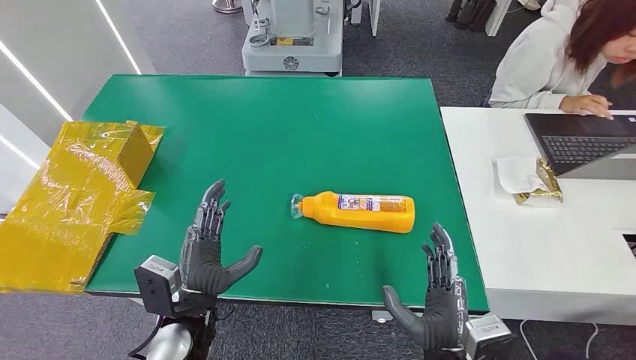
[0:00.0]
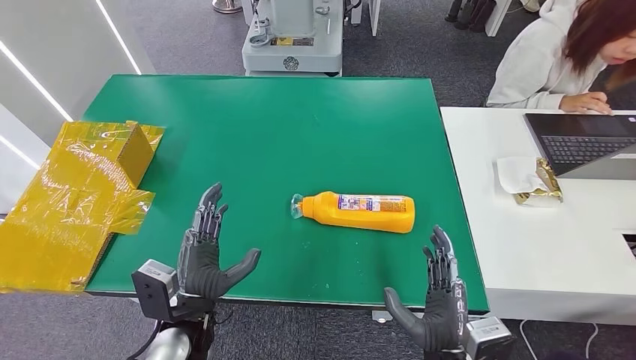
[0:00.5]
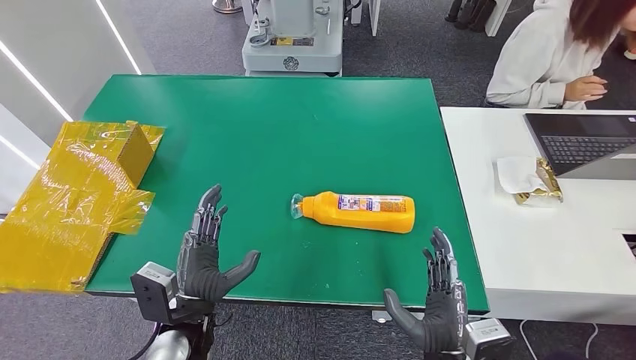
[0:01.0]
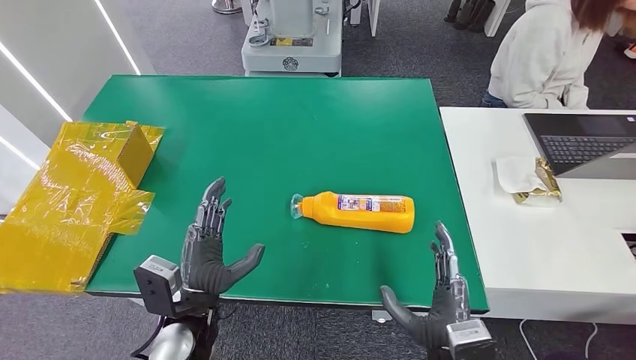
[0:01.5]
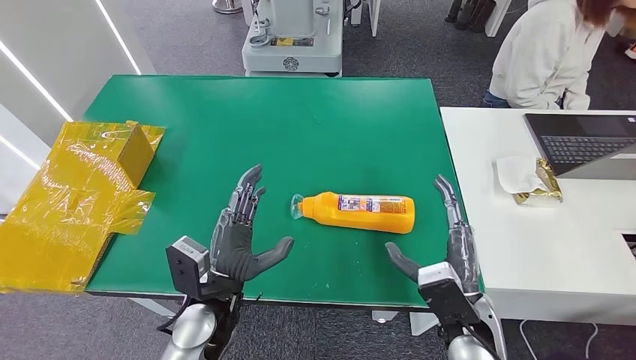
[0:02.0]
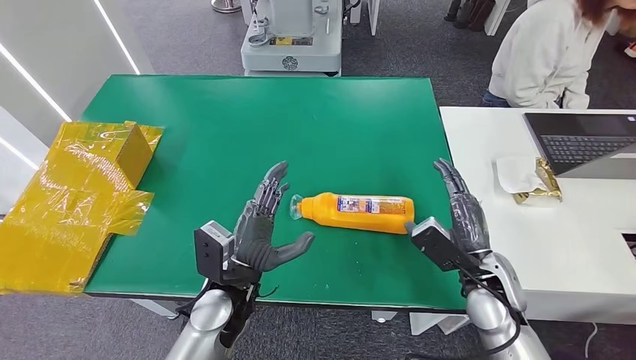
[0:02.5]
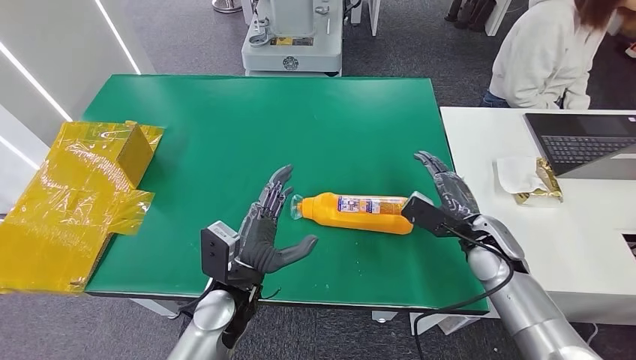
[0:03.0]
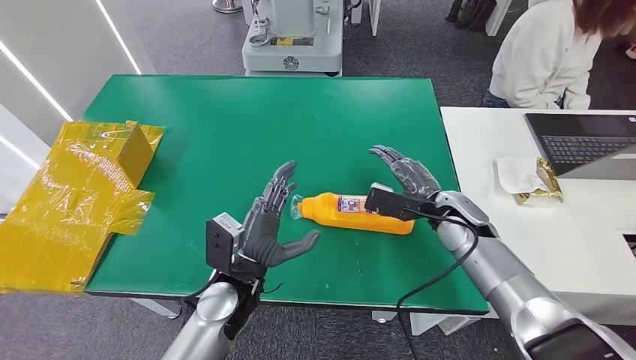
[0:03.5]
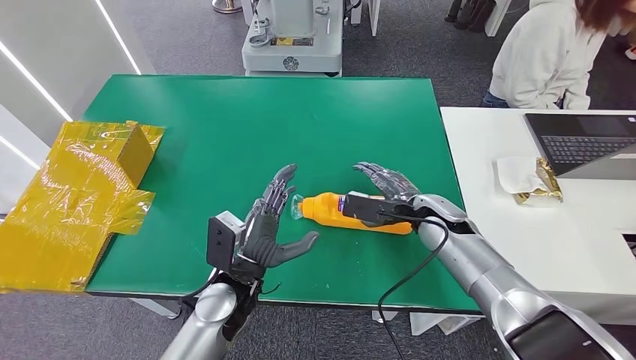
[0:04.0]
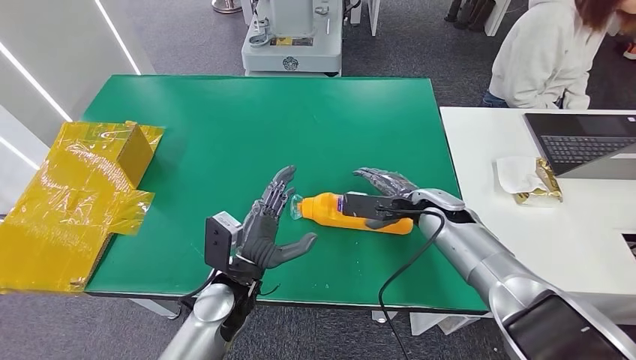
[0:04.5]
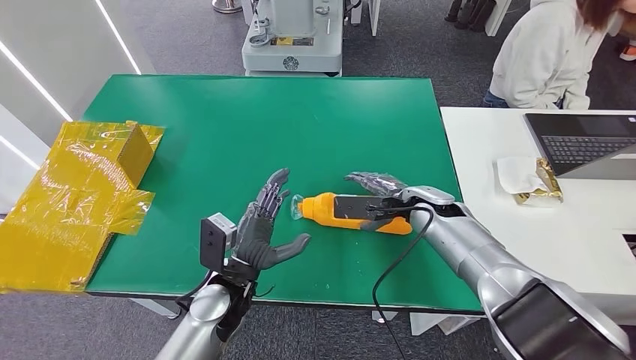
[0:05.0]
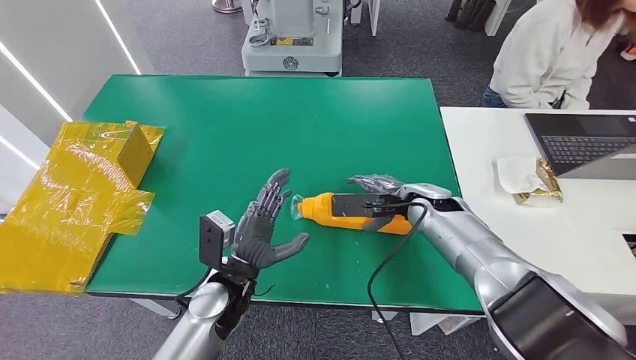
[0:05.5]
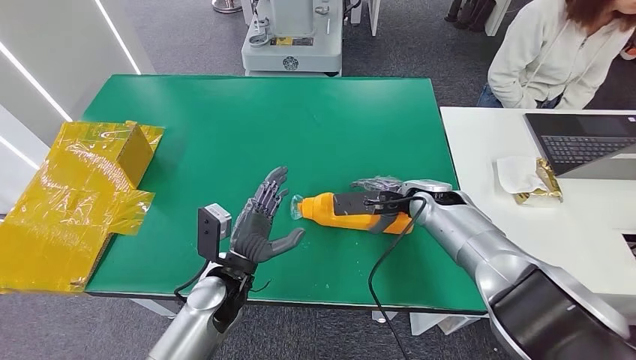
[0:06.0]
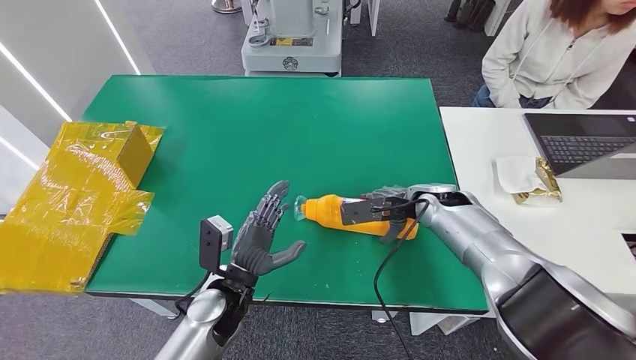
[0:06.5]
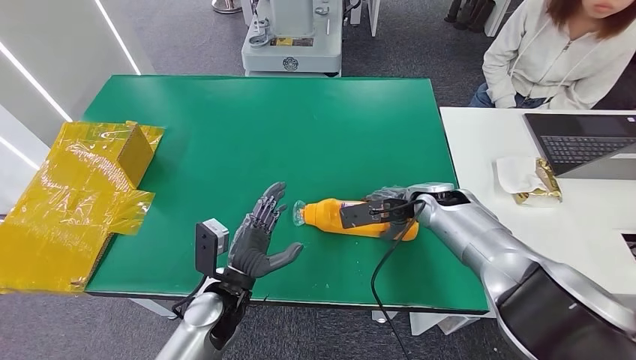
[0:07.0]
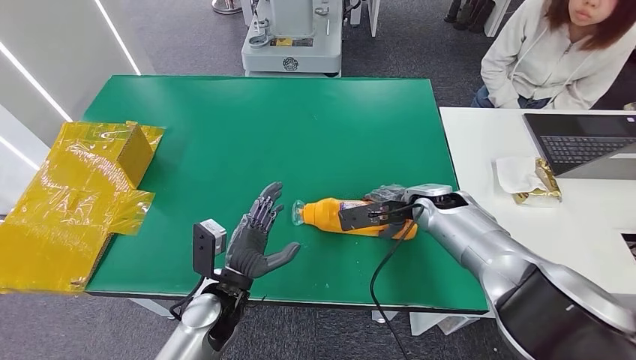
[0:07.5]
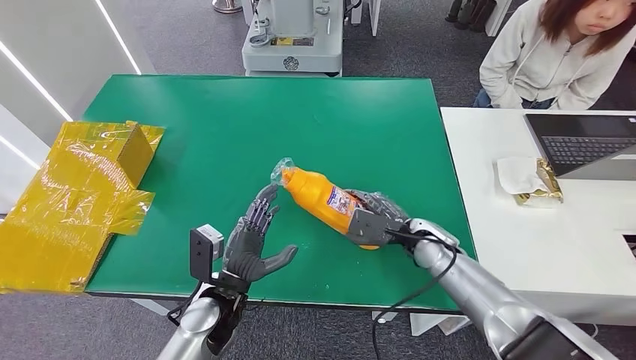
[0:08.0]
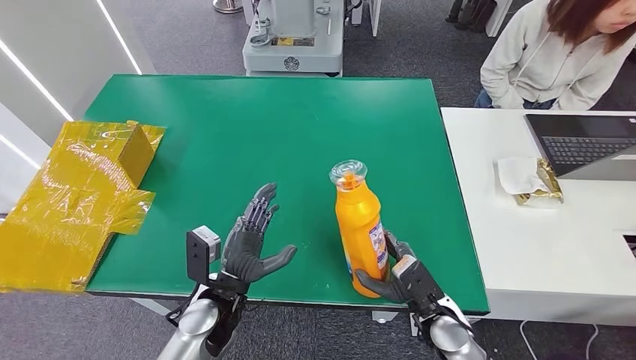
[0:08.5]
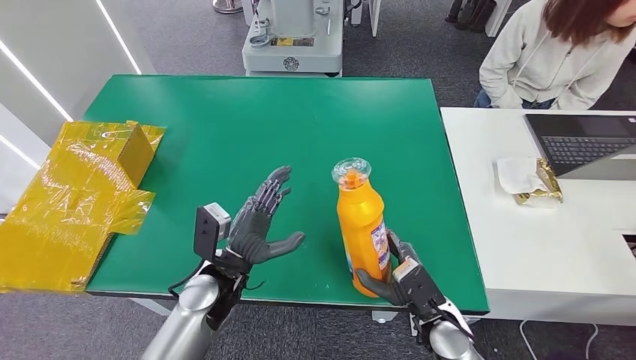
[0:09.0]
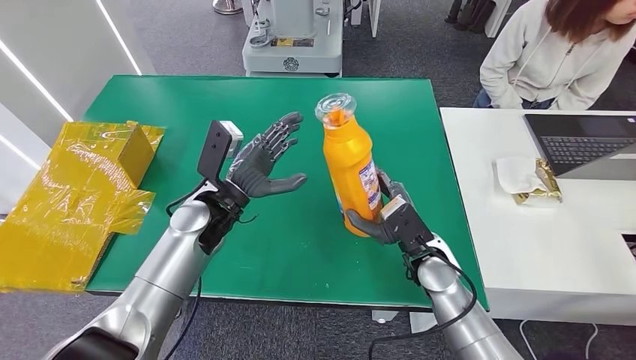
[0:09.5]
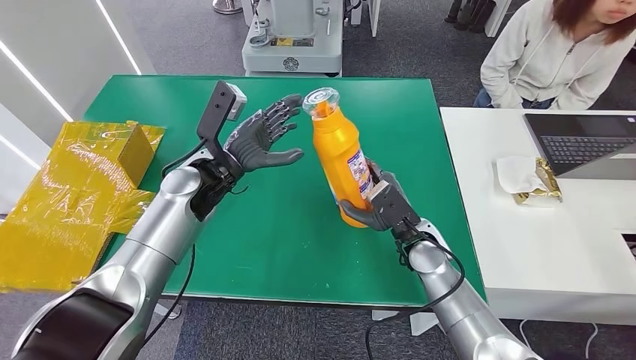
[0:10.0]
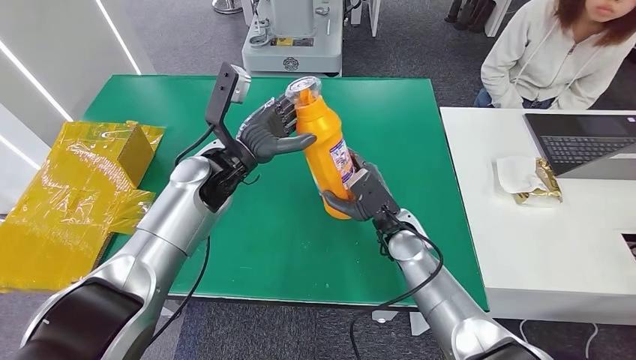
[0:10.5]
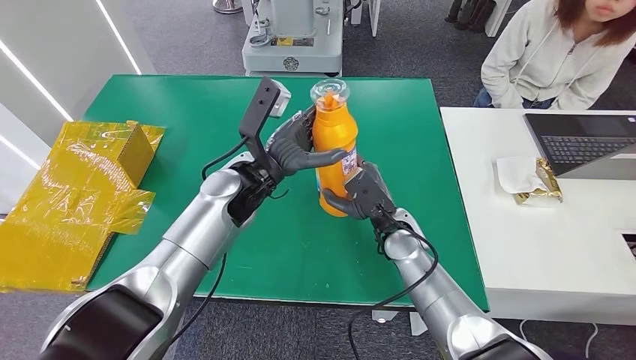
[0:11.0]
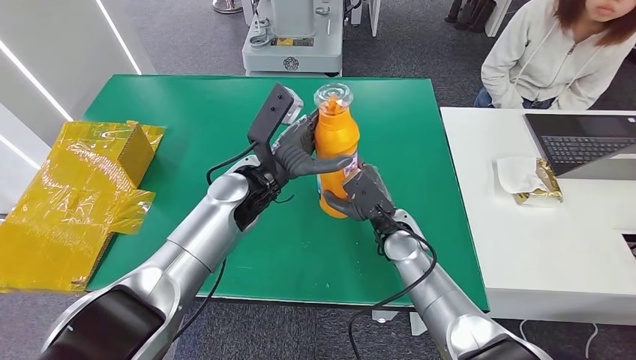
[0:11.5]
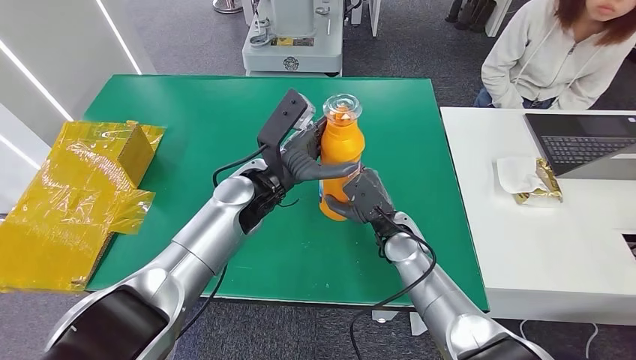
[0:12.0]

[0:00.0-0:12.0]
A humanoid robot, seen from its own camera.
Step, 0:00.0 to 0:09.5: Pick up the bottle from the table.
0:02.0 to 0:04.0: The right hand moves forward, roughly 20 cm.
0:06.0 to 0:08.0: The right hand moves downward and backward, about 10 cm.
0:10.0 to 0:12.0: The left hand shifts some 10 cm to the right.

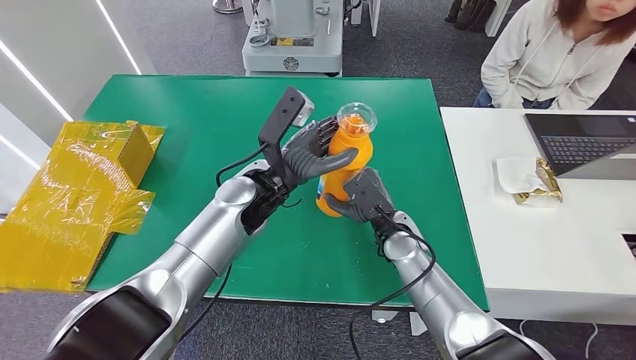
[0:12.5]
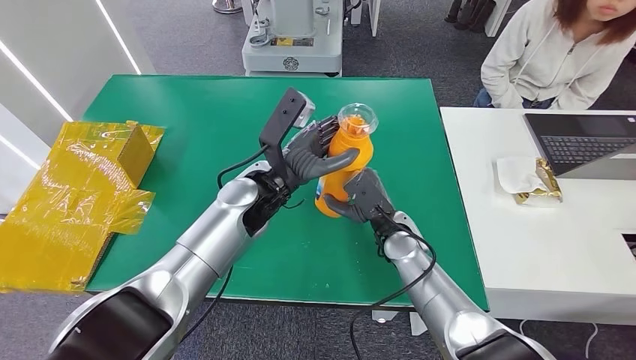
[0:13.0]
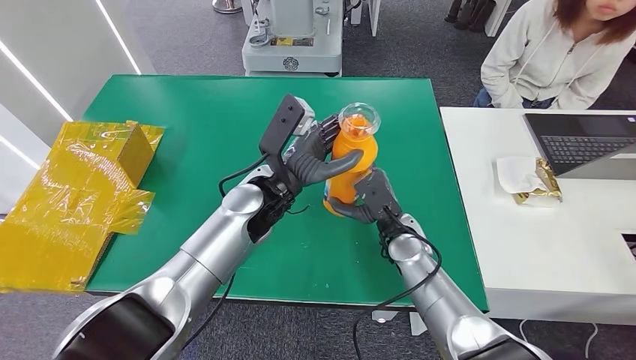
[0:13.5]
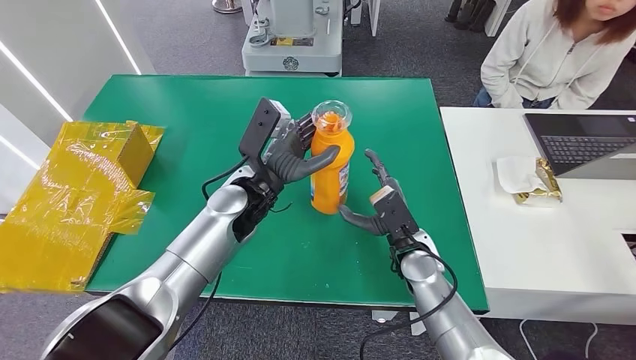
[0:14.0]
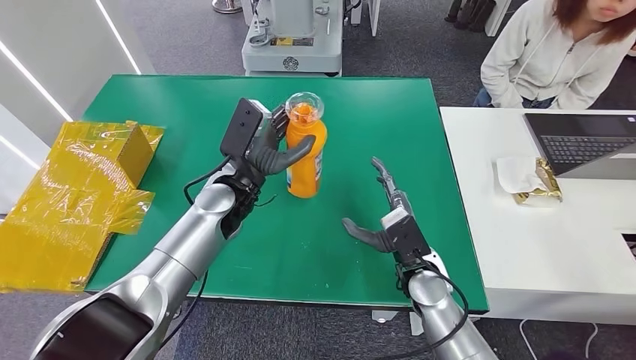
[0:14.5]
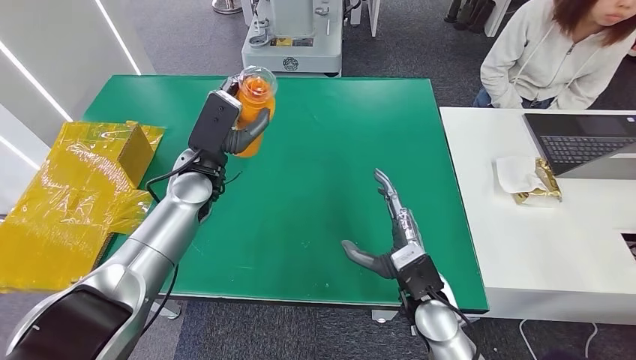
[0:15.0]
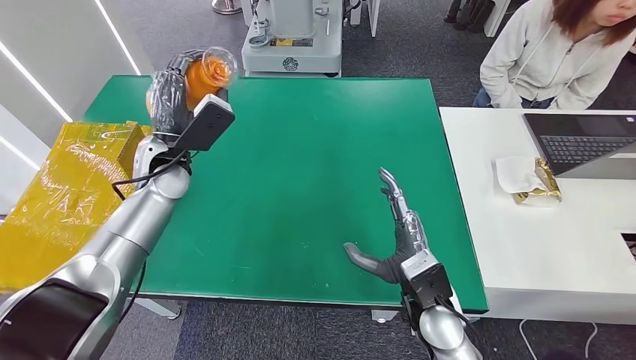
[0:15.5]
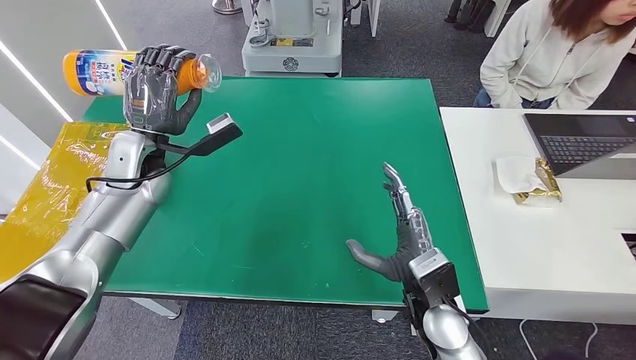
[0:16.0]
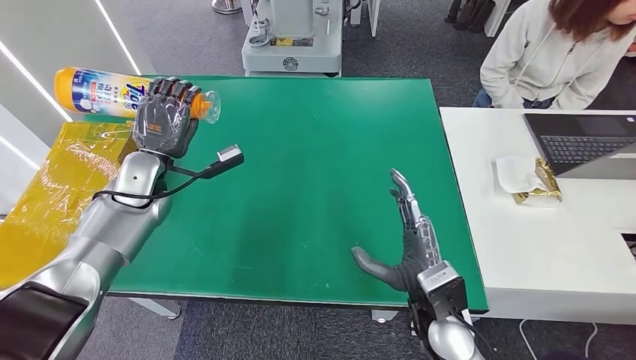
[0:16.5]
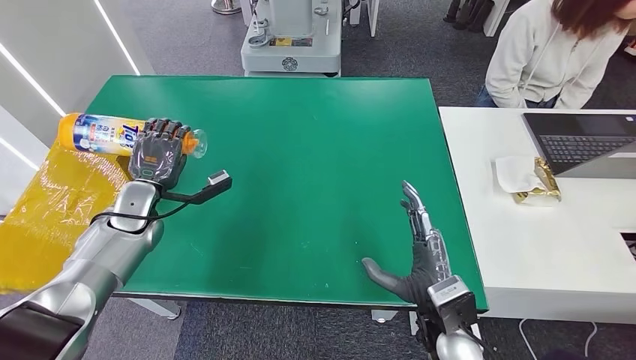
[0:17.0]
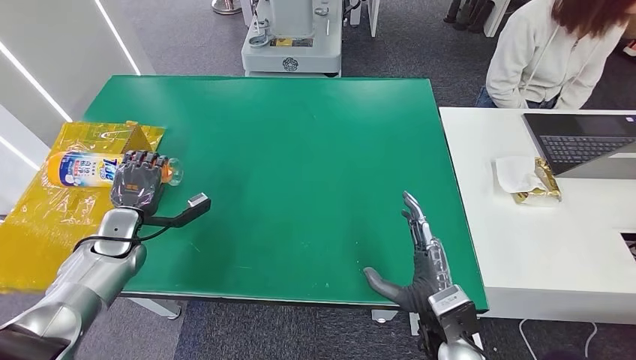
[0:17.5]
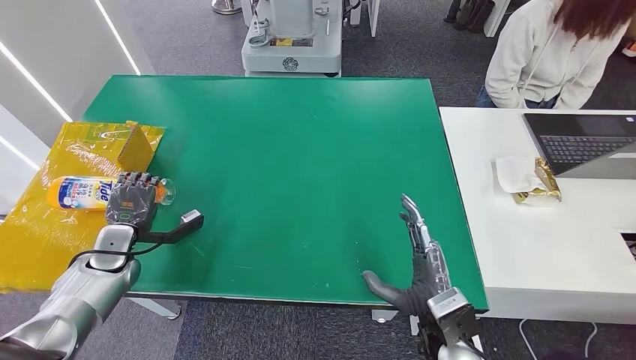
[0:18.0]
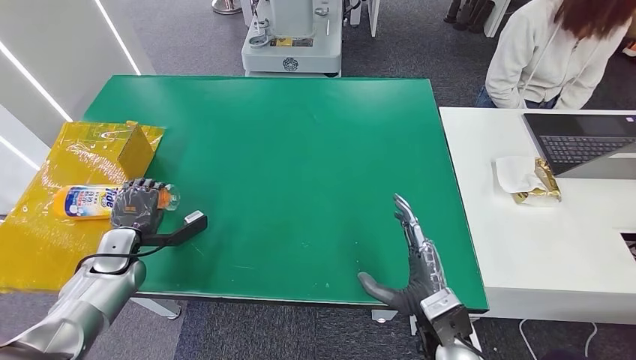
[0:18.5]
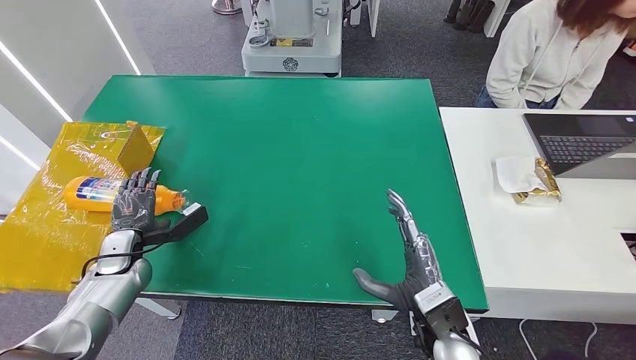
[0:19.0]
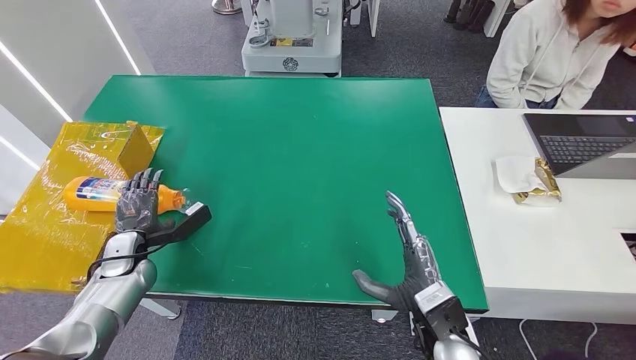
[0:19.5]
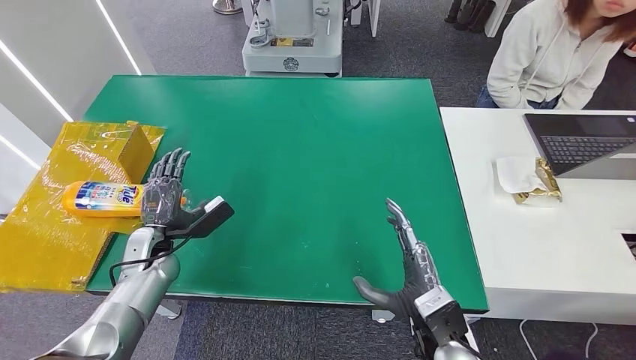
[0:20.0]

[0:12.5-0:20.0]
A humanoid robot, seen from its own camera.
Step, 0:12.5 to 0:19.5: Turn the bottle to the front side.
0:12.5 to 0:14.5: The right hand travels backward by approximately 5 cm; the left hand heads to the left, covering approximately 5 cm.
0:16.5 to 0:18.0: The left hand shifts roughly 20 cm downward, to the left and backward.
0:18.0 to 0:20.0: The left hand moves to the right, about 10 cm.
